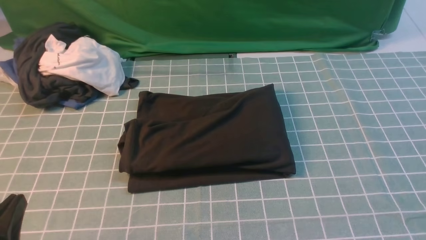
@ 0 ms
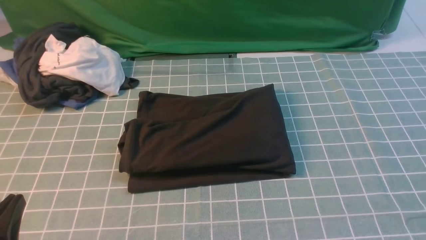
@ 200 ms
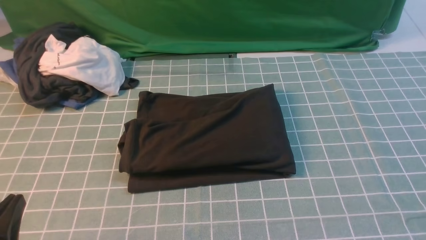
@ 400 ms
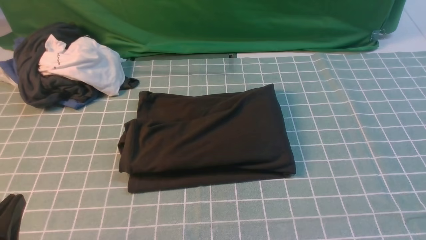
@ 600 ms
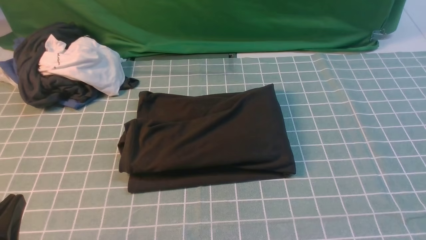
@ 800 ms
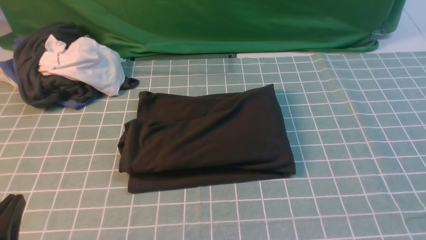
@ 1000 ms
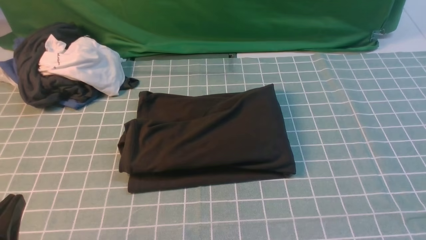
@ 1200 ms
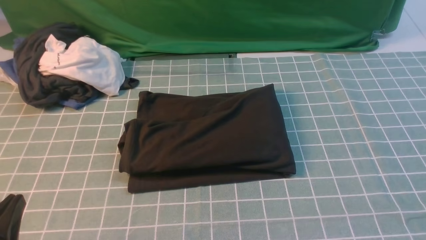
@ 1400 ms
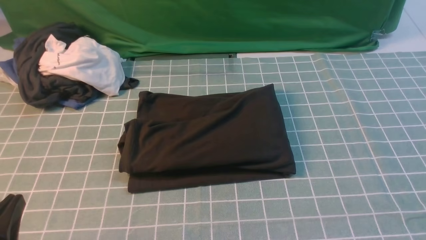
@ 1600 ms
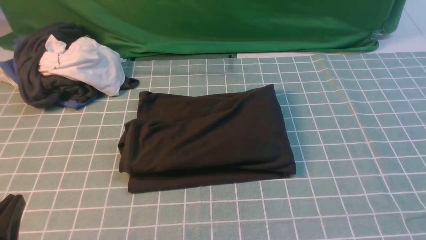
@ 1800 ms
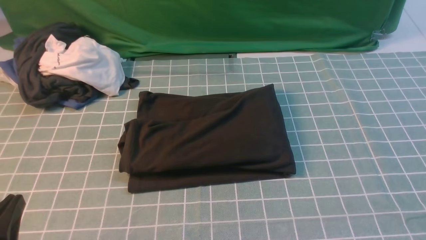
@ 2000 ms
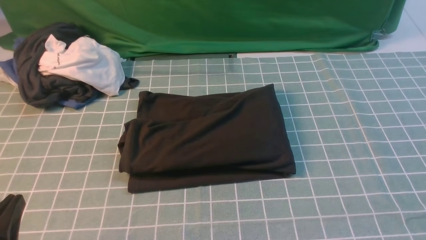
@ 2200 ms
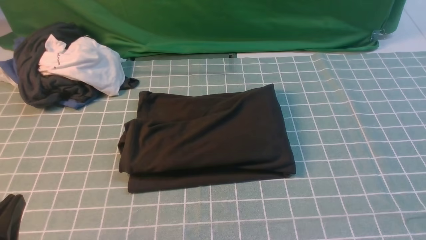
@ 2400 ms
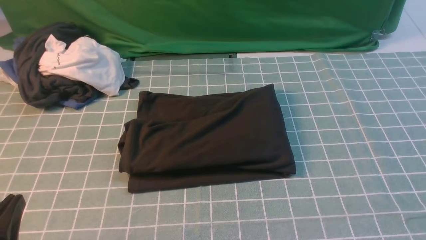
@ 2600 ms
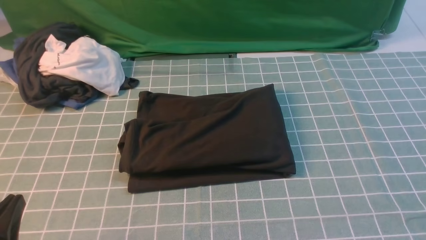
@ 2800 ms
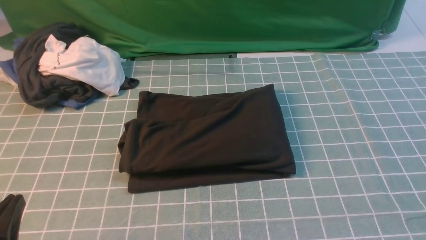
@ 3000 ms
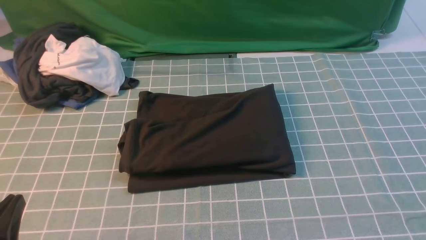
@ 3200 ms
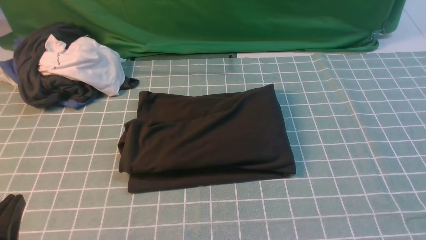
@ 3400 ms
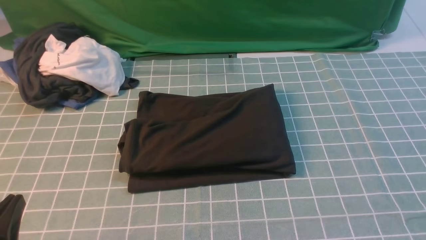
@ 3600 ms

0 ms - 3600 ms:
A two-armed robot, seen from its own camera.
1800 ms - 3600 ms: Both grippers stay about where they are.

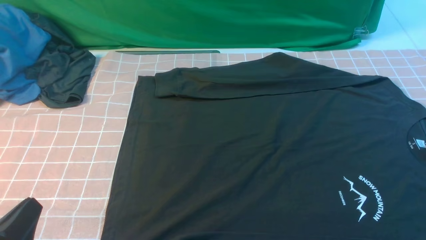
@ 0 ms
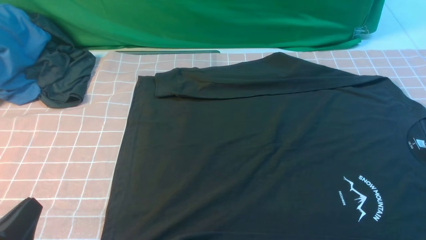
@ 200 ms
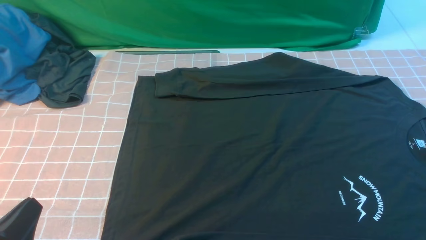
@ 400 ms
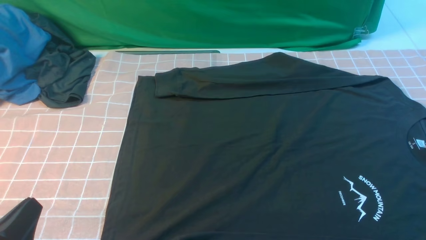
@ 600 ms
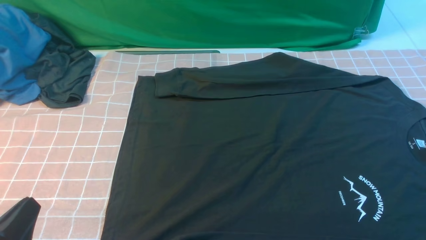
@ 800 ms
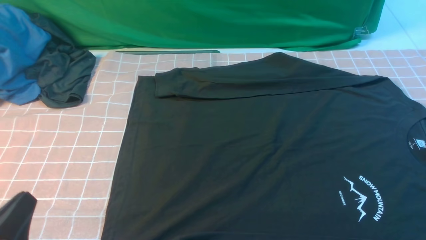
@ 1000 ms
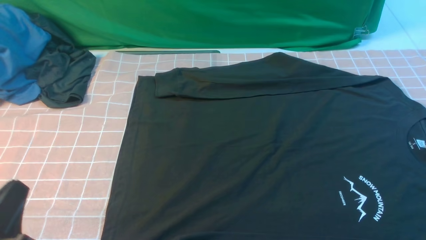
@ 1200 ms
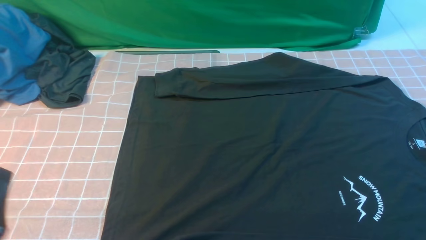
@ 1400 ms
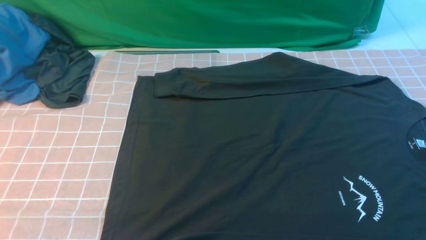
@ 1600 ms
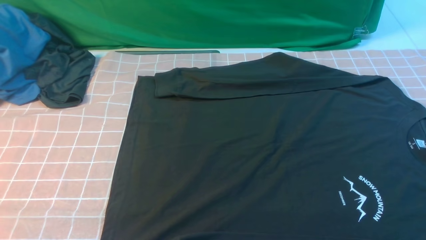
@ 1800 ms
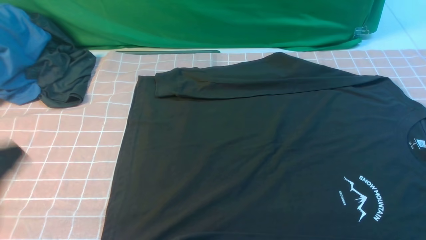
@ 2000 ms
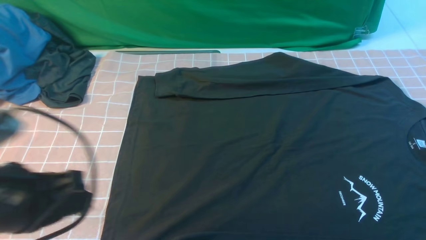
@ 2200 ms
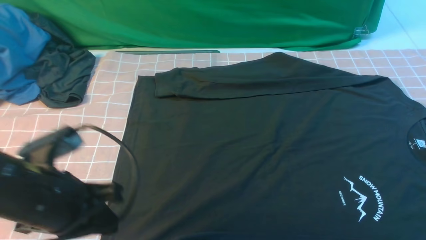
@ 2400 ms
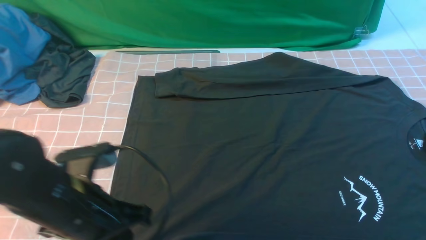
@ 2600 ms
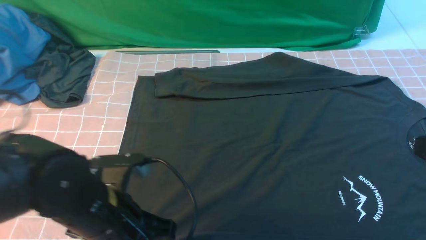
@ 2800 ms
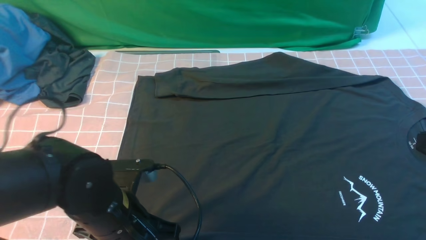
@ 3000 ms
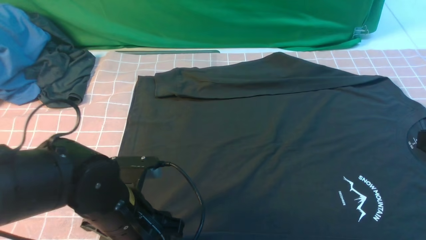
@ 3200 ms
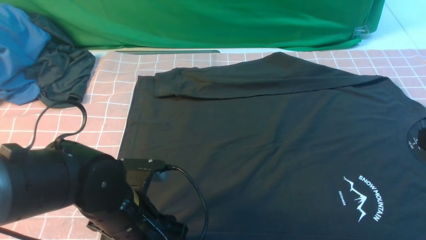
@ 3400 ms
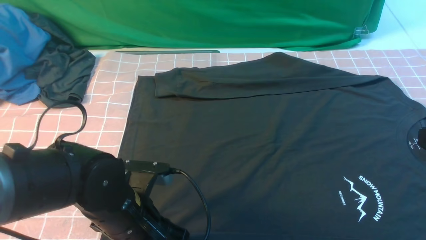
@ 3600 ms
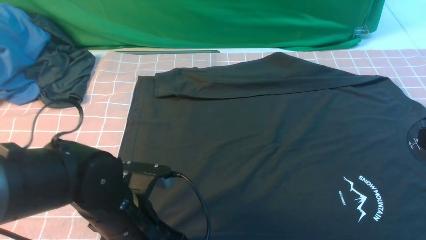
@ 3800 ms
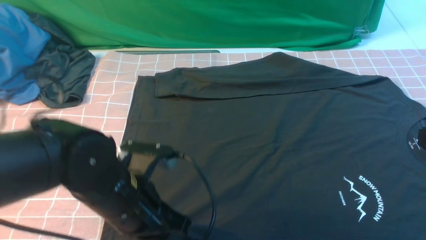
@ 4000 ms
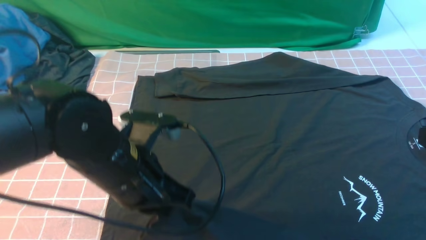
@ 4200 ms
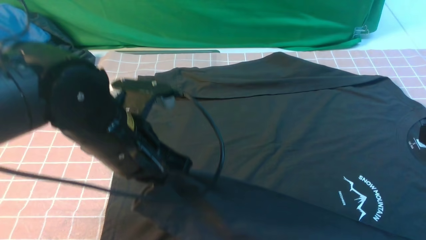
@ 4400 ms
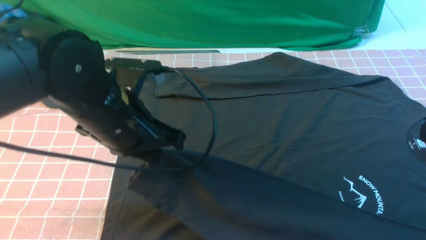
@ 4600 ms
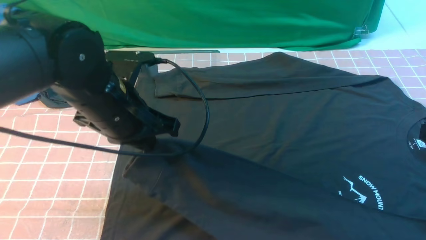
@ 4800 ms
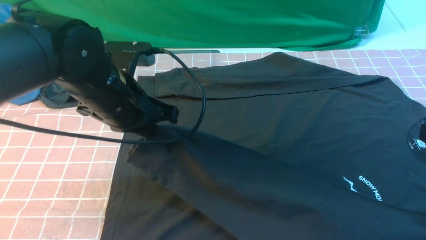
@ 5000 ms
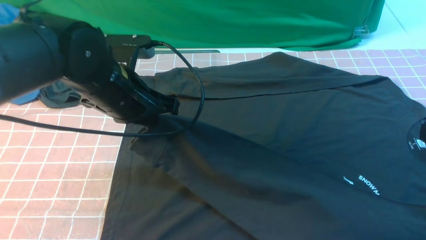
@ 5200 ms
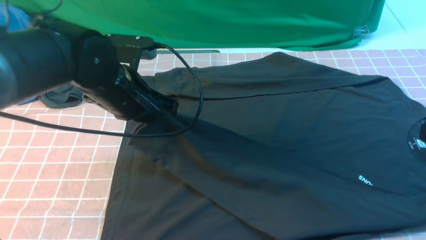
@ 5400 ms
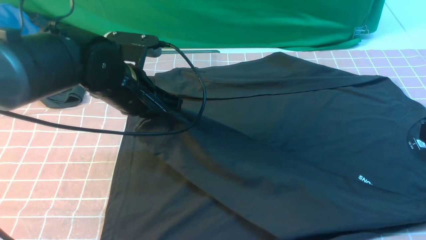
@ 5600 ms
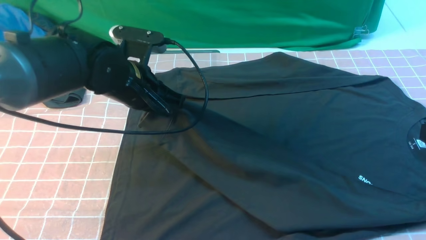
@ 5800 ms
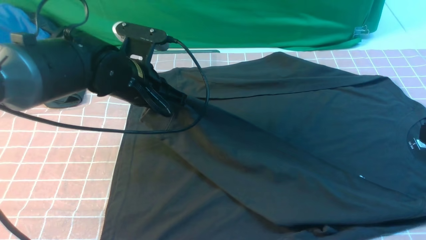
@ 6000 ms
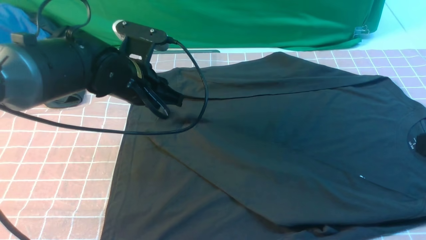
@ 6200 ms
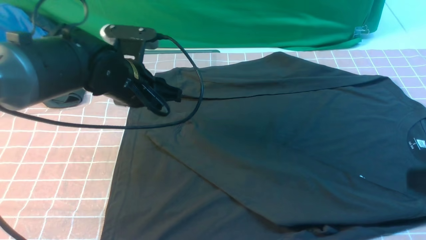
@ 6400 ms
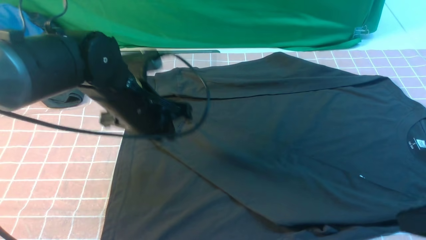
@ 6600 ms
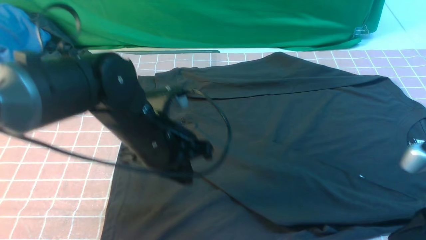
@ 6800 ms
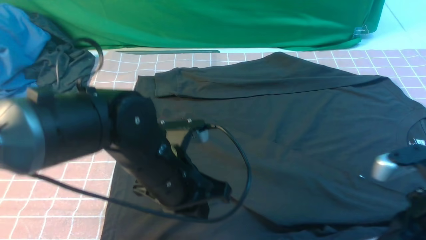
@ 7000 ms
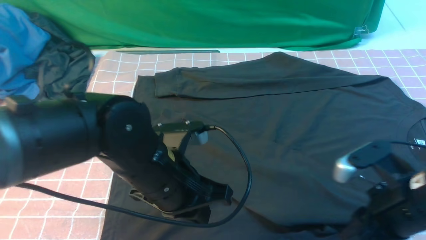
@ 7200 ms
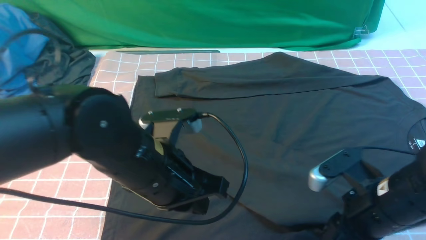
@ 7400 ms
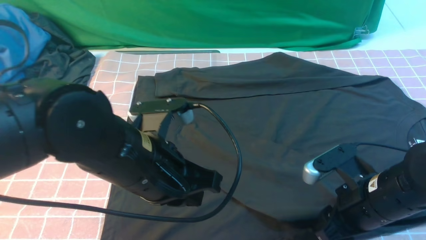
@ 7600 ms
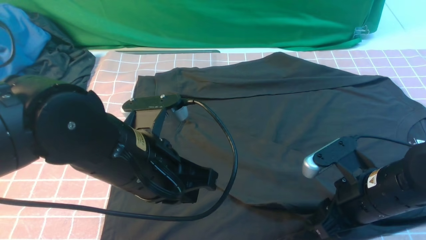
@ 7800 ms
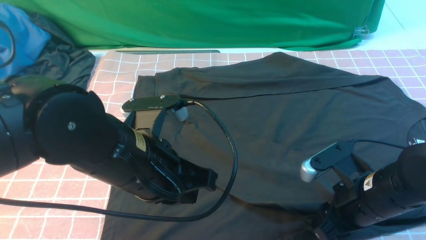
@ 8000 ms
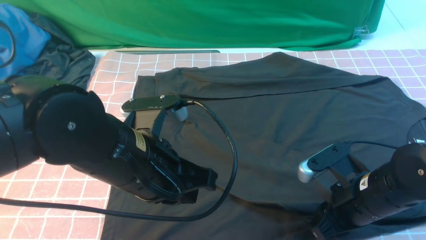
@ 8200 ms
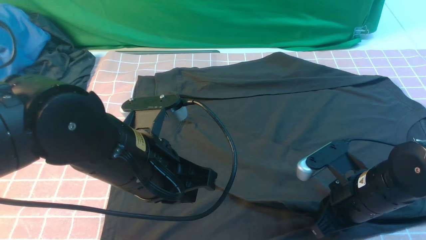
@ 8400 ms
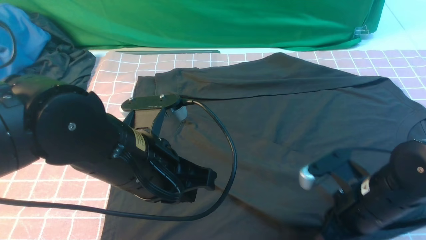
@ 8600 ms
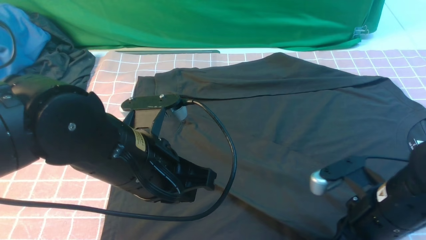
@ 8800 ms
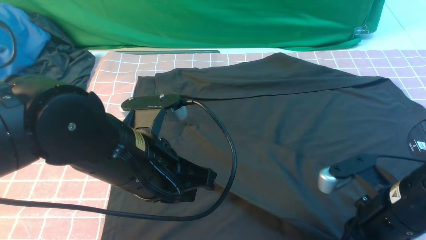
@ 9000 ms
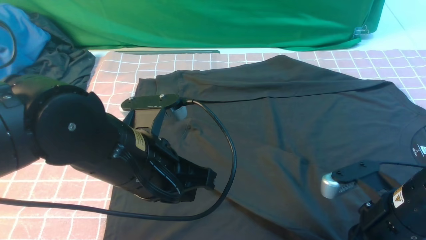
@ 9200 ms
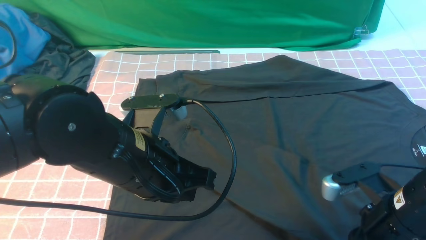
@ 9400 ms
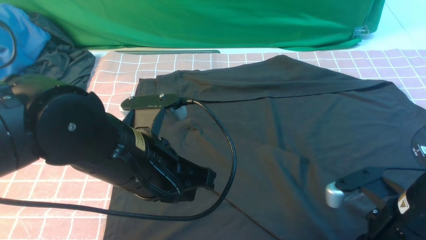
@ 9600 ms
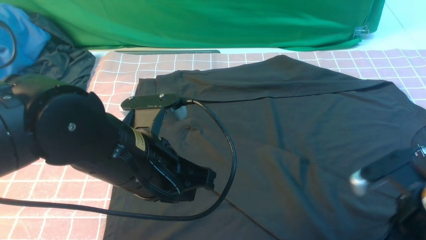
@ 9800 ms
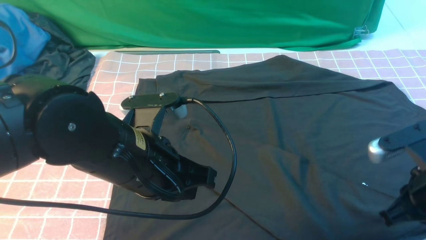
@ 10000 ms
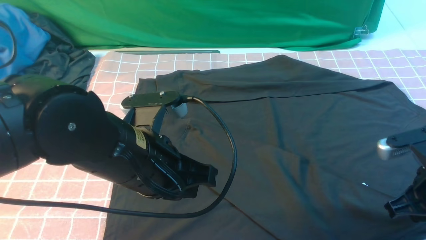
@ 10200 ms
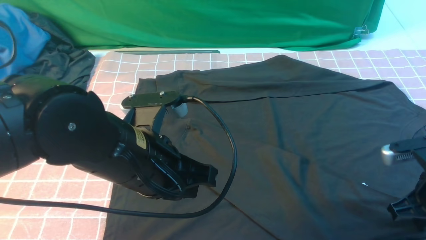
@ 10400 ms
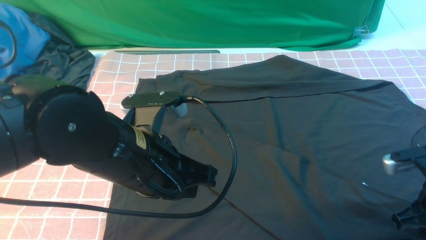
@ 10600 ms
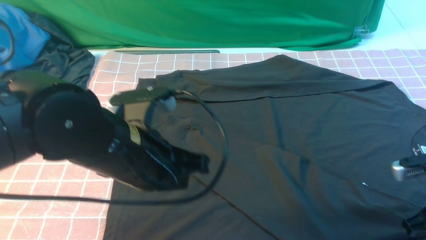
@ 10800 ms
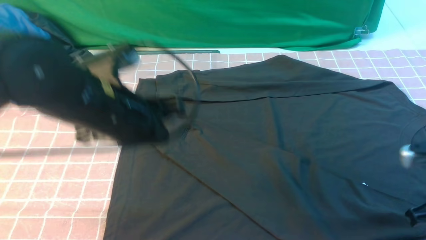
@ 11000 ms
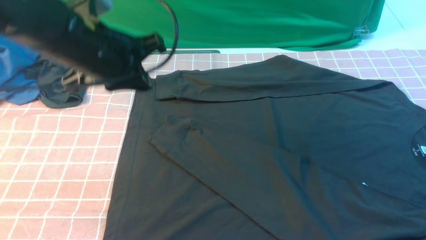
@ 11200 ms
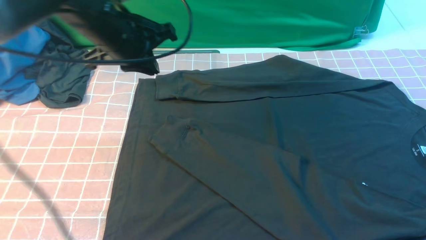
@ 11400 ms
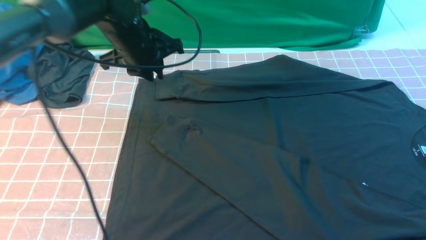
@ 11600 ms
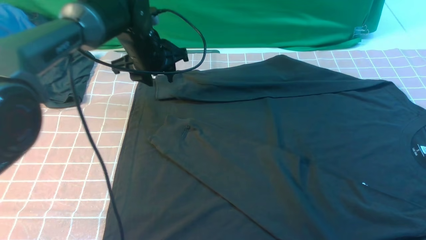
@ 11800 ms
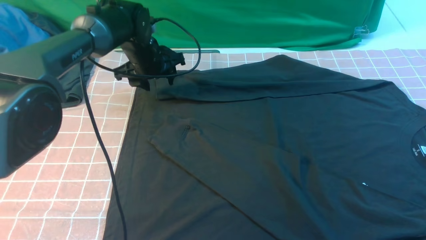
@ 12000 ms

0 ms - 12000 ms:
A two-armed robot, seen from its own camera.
Step, 0 ms - 3600 ms: use the left arm to clamp the cuff closest to it.
Step, 3800 ms - 6200 ms: use the left arm to drag and place the cuff at the centered position on the left edge of the fabric.
0 ms - 1600 ms: The left gripper goes about 5 cm upward.
1600 ms - 3000 ms: The right gripper shifts some 15 cm upward and forward, and closes. The left gripper moves forward, to the right and downward, approximately 20 cm, and opens up.
3000 ms - 4400 ms: The left gripper is displaced upward by roughly 10 cm, and closes.
4400 ms - 6000 ms: The left gripper is displaced forward by approximately 10 cm.
6000 ms - 7600 ms: The right gripper heads downward, to the left and forward, covering approximately 20 cm, and opens up; the left gripper moves backward, some 15 cm.
7600 ms - 9000 ms: The right gripper closes up.
9000 ms - 10400 ms: The right gripper shifts some 10 cm to the right.
10400 ms - 12000 ms: The left gripper goes some 30 cm forward, and opens up. Meanwhile the right gripper shifts approximately 15 cm upward and backward.

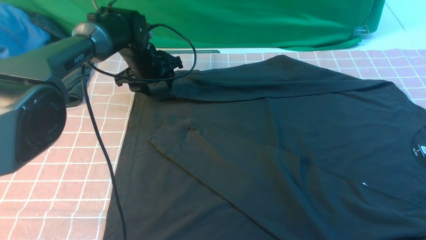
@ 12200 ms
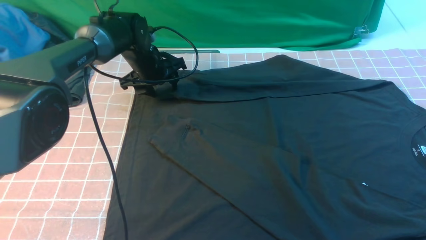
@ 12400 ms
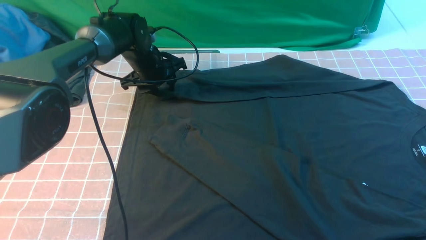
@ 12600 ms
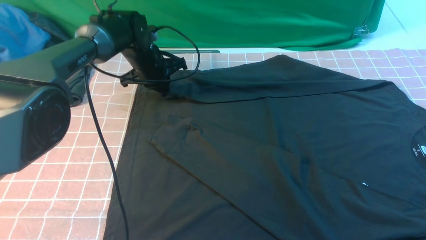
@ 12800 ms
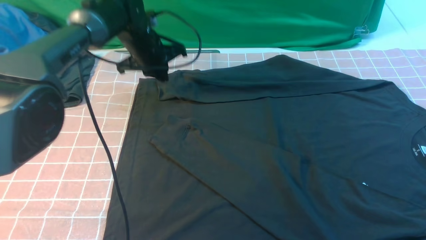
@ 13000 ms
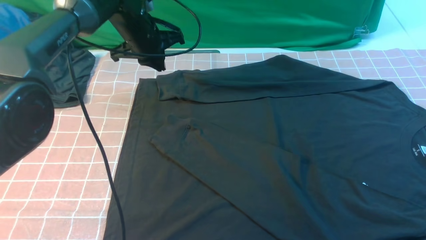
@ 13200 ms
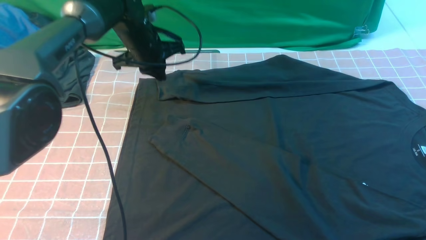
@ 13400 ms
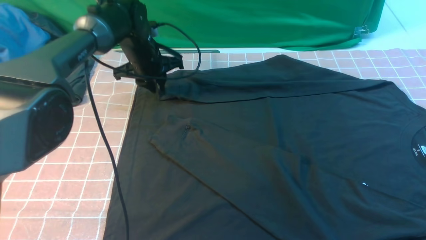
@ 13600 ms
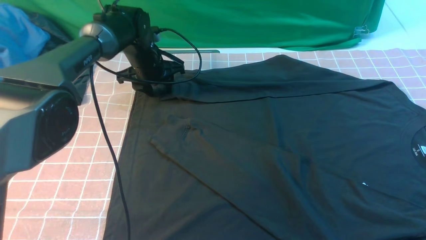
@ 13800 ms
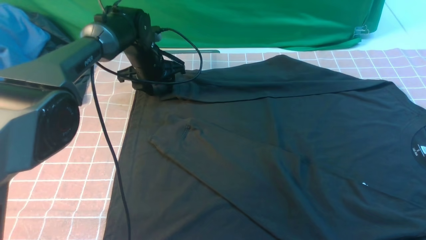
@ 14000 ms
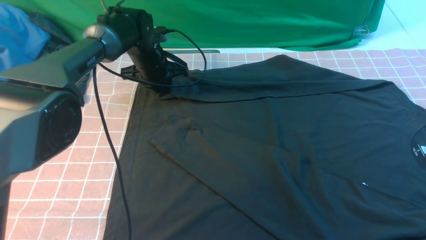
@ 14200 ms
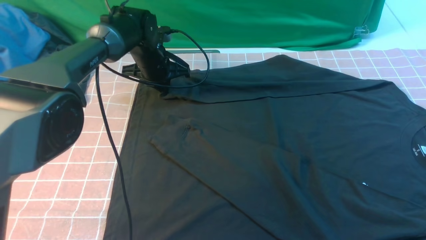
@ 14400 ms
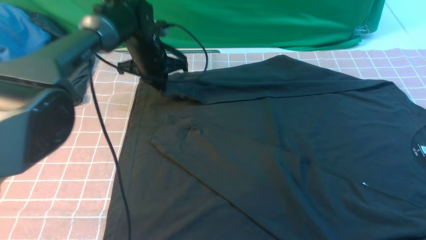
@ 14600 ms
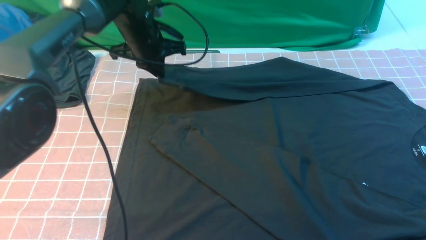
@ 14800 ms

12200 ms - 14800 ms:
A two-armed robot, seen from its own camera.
Step, 12200 ms - 14400 ms: use the left arm to clamp the cuff farthest from it.
12200 ms - 13400 ms: The left gripper closes.
13400 ms - 14800 ms: The left gripper opens and closes again.
